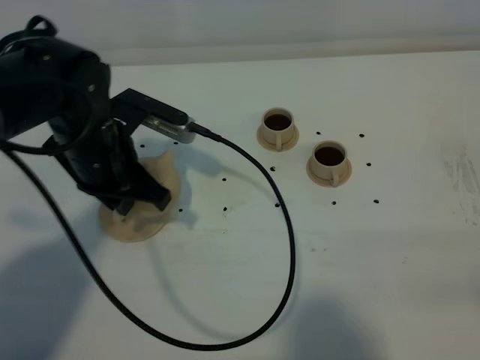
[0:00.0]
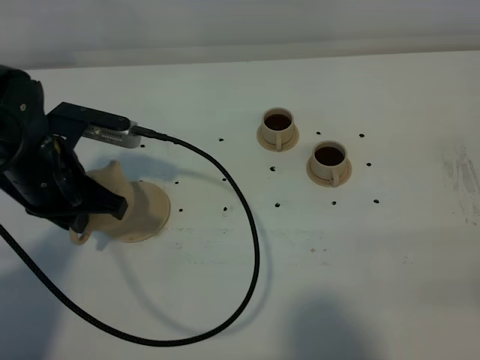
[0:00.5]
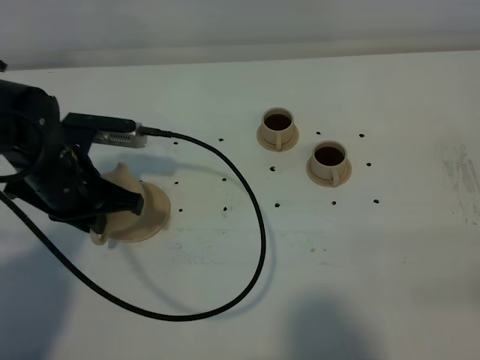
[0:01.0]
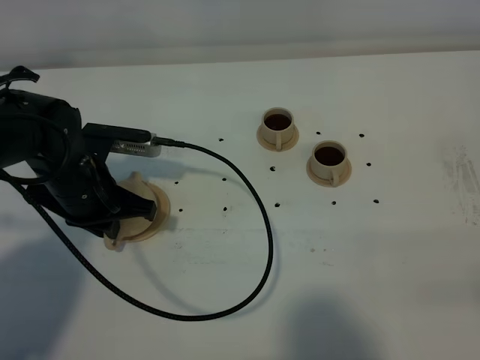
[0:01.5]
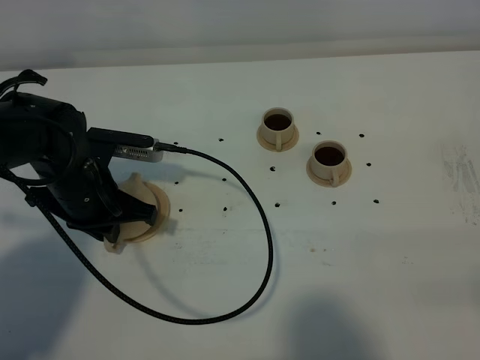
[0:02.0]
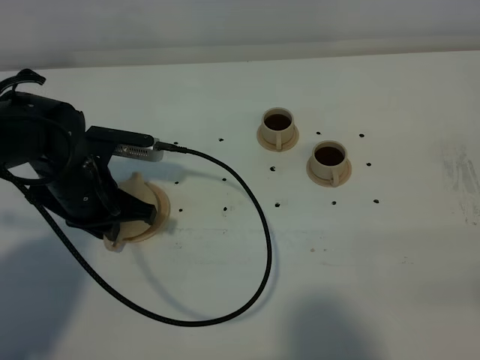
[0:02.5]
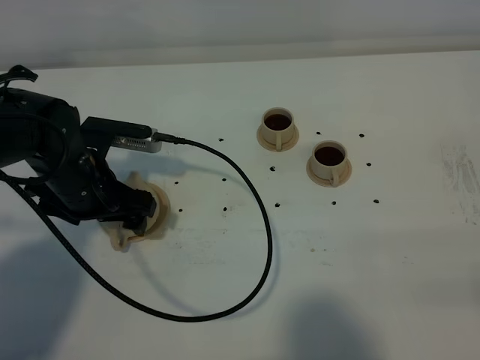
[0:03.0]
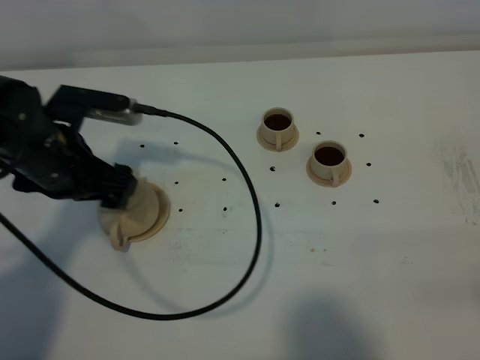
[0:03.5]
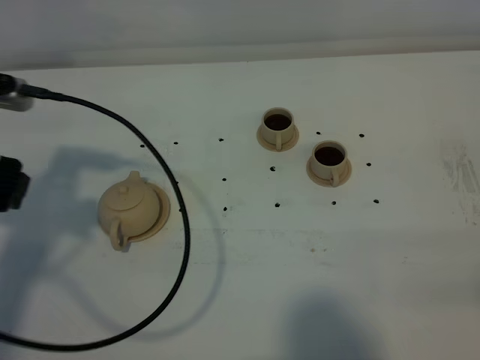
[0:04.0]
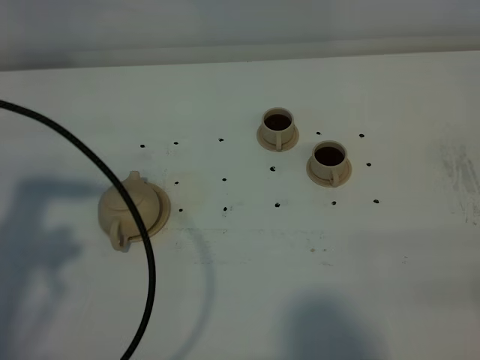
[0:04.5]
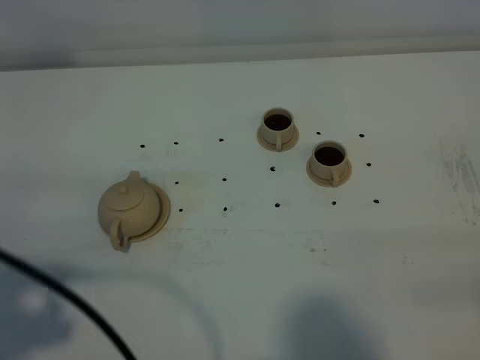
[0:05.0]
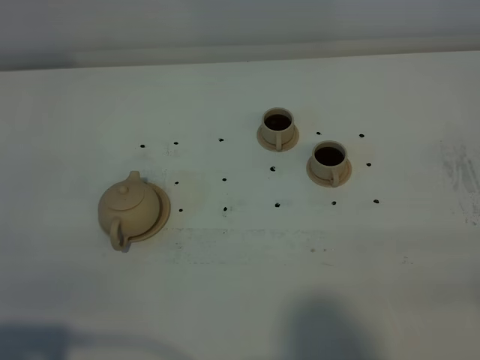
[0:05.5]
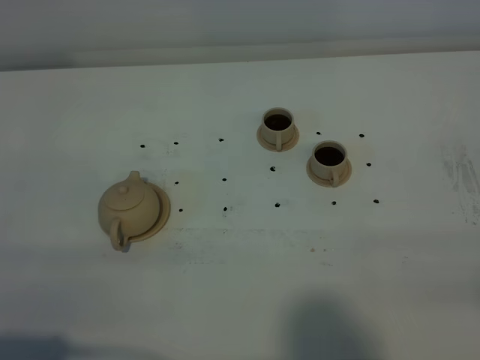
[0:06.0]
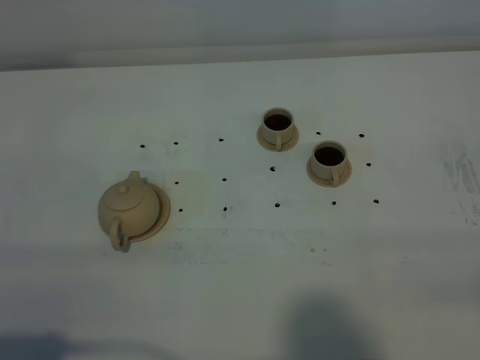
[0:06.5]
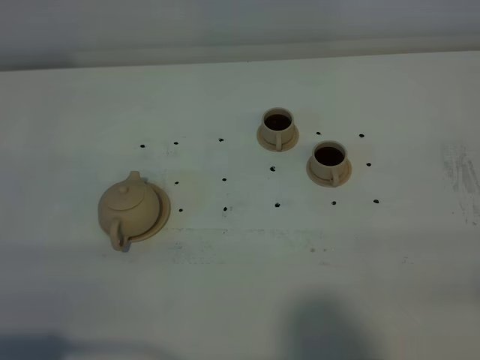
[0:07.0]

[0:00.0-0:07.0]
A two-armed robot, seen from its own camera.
Task of the whole recording: grasp the brown teapot and pour the tea into the two brown teacups one by one, put the brown teapot back in its original place.
0:00.0 to 0:02.0: The left gripper moves downward, some 5 cm.
0:02.0 to 0:03.5: The left gripper shifts about 5 cm upward, and opens its fingers.
0:03.5 to 0:05.0: The left gripper is displaced backward and upward by some 30 cm.
0:05.0 to 0:07.0: The left gripper goes roughly 10 cm downward.

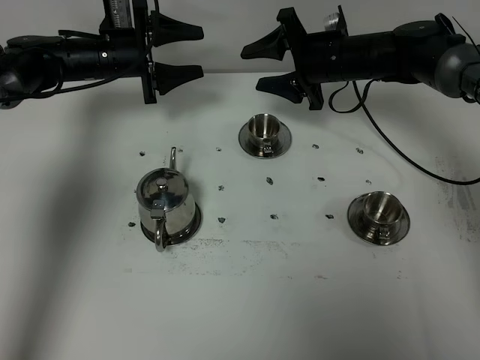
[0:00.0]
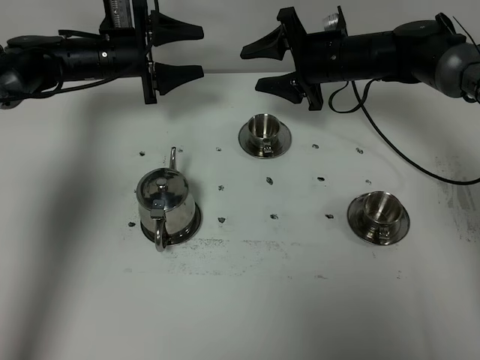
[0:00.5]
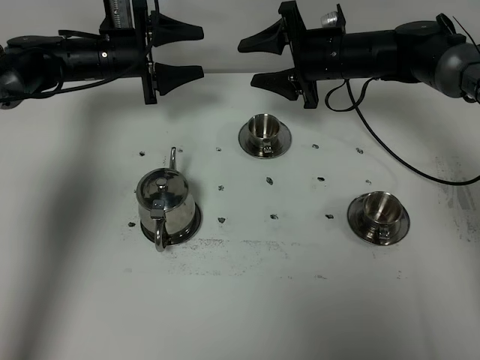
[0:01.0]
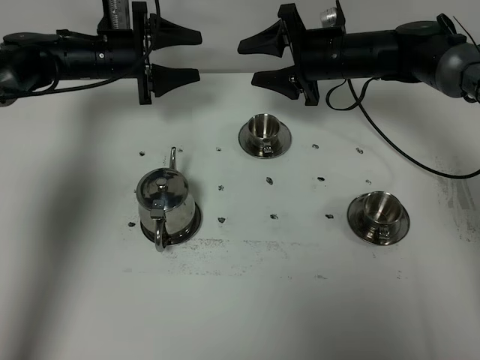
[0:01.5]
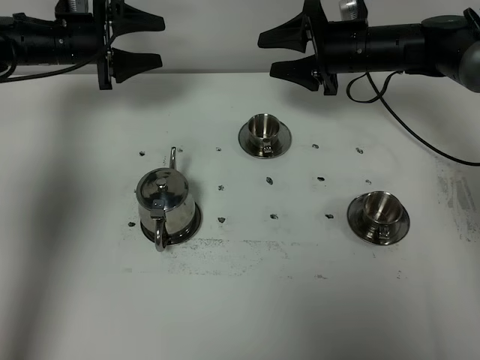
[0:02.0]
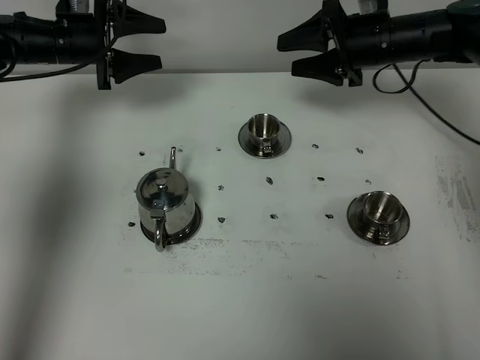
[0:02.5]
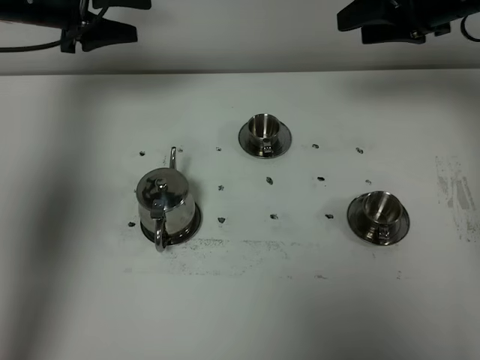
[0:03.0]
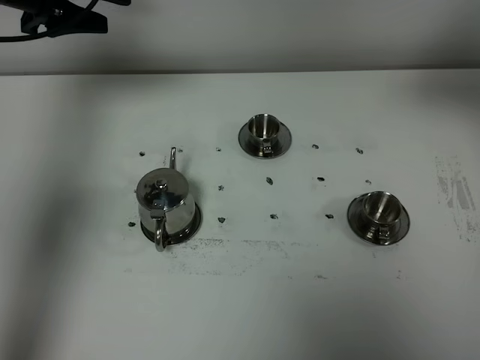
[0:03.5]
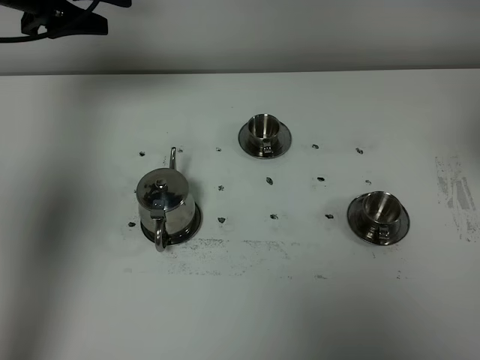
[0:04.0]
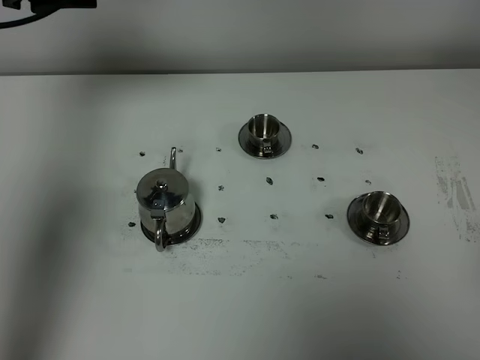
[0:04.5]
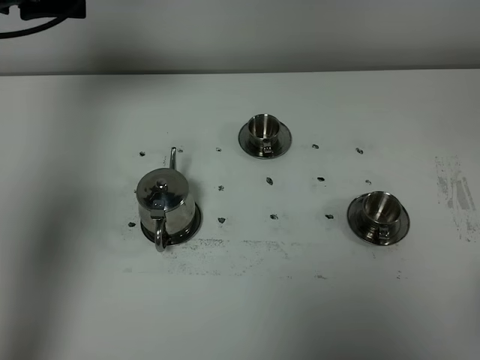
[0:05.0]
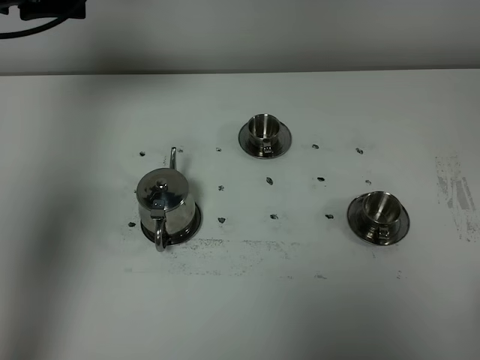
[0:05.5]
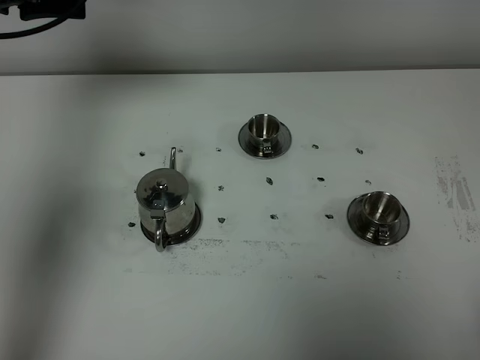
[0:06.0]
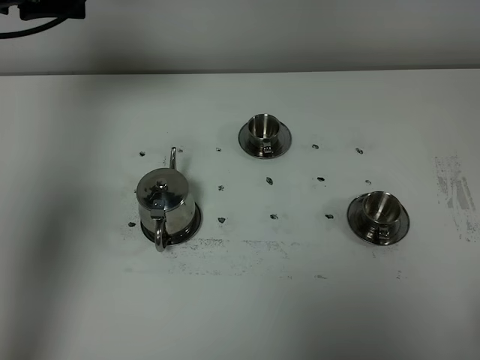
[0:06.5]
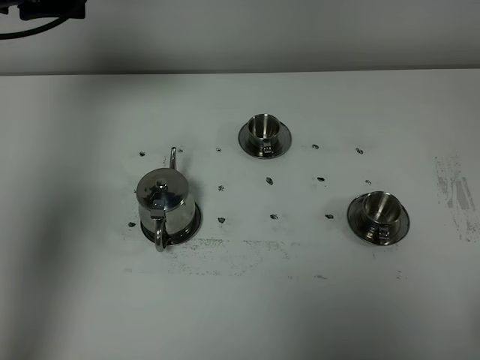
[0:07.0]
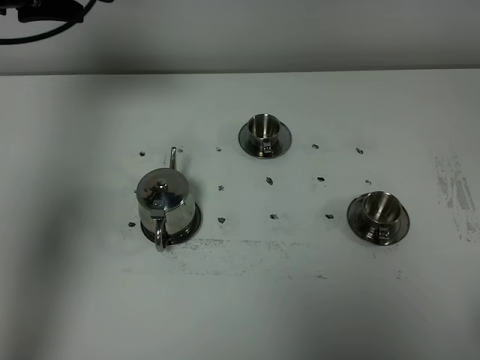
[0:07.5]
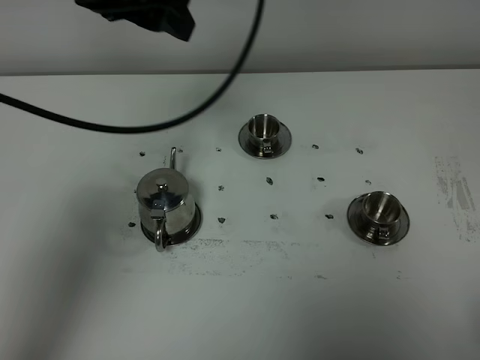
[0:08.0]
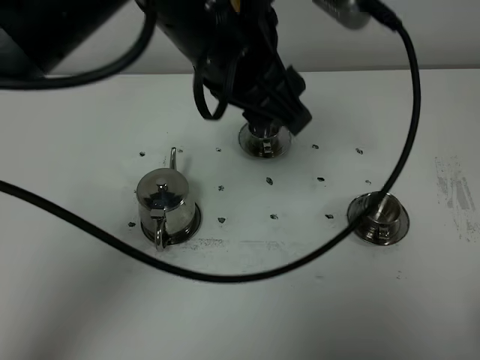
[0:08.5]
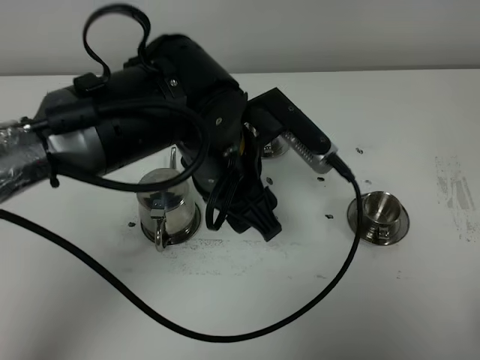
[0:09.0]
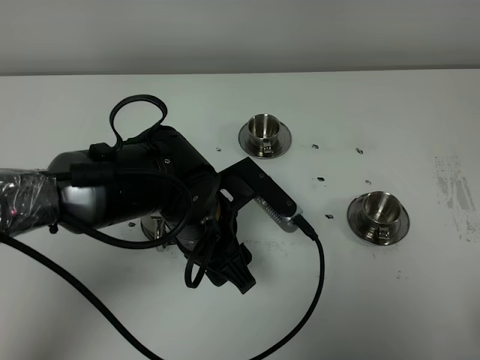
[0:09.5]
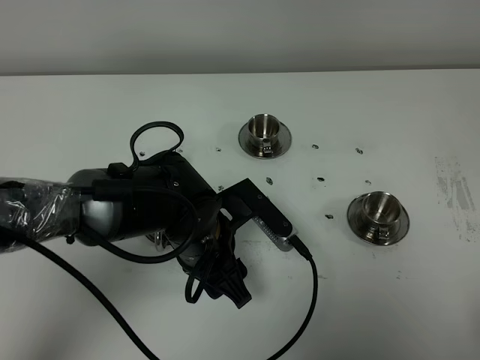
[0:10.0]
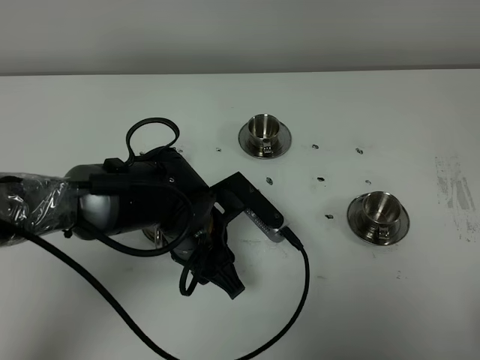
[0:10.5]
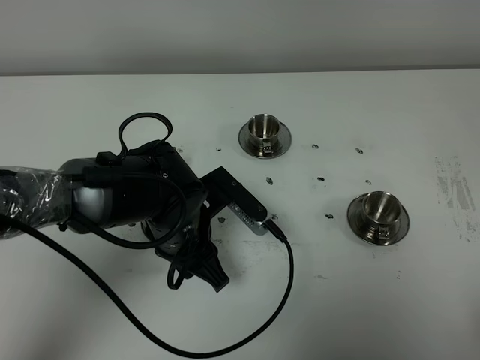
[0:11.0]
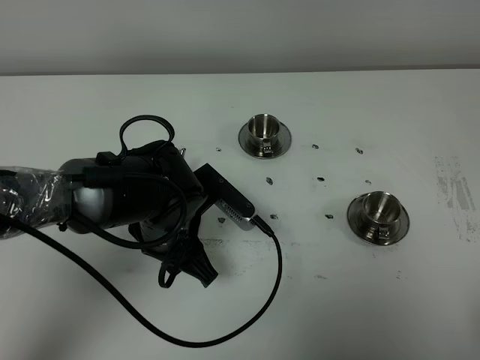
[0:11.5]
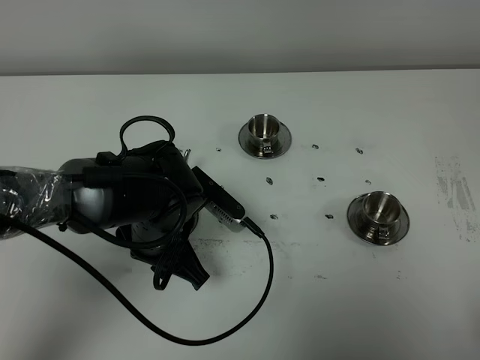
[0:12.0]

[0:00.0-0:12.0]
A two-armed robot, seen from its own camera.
Task of the whole recording: grasp the stainless steel teapot and pour the tea into the two stainless steel teacups one by one, put the stainless steel teapot back in its original place.
0:00.0 to 0:02.0: The left gripper travels to the left by about 5 cm.
0:02.0 to 0:04.0: The right gripper travels backward, upward and to the right by roughly 40 cm, while the left gripper travels upward by roughly 15 cm.
0:06.0 to 0:08.0: The left gripper heads to the right and backward, covering roughly 20 cm.
0:08.0 to 0:10.0: The left gripper moves downward and backward, approximately 30 cm.
0:10.0 to 0:12.0: The left gripper closes its fingers.

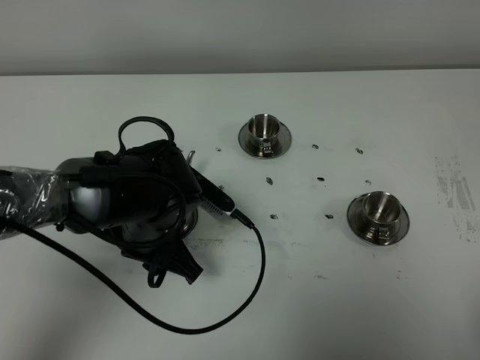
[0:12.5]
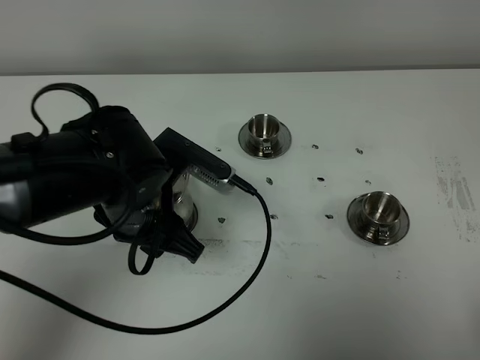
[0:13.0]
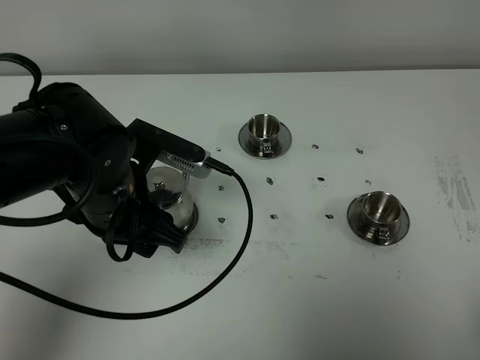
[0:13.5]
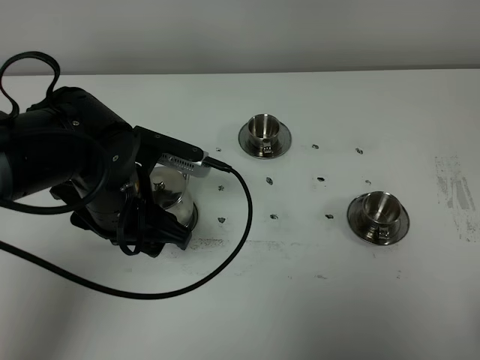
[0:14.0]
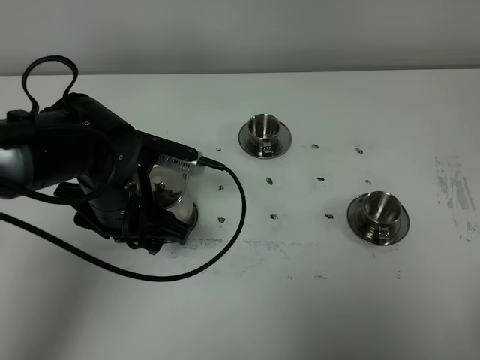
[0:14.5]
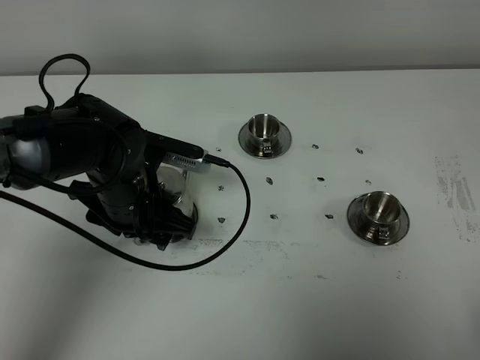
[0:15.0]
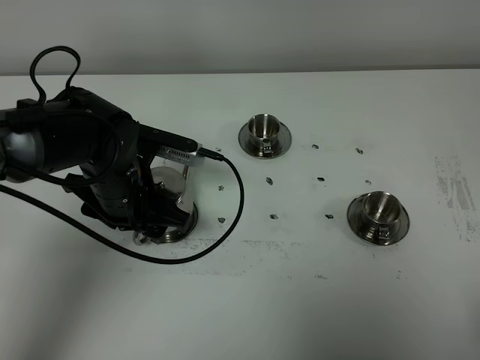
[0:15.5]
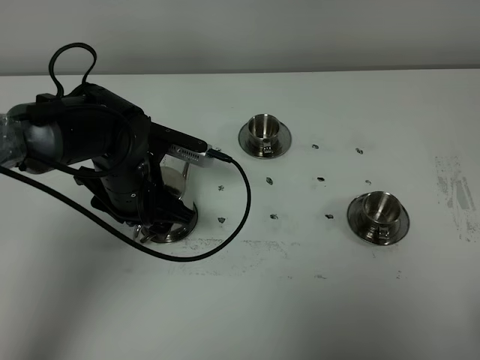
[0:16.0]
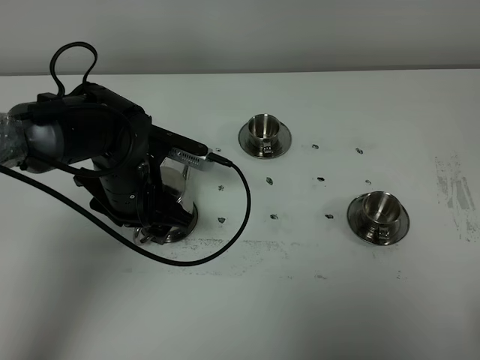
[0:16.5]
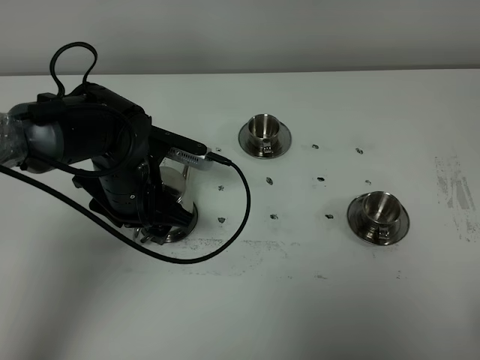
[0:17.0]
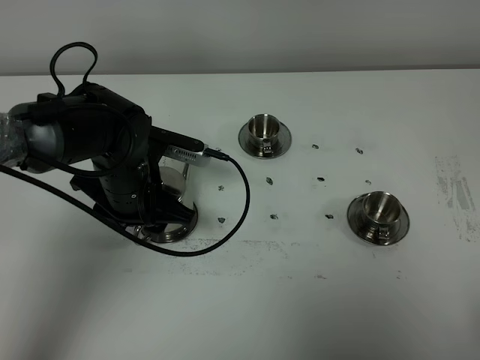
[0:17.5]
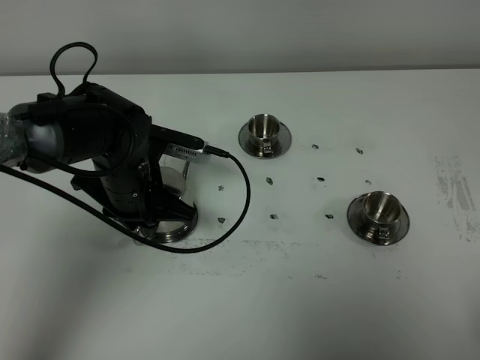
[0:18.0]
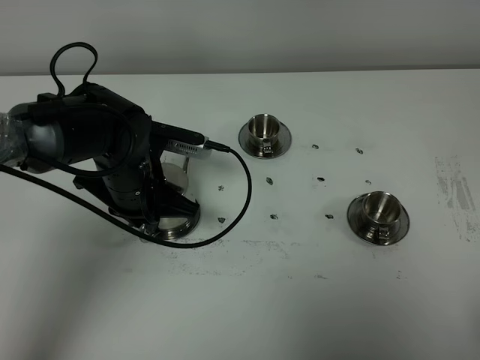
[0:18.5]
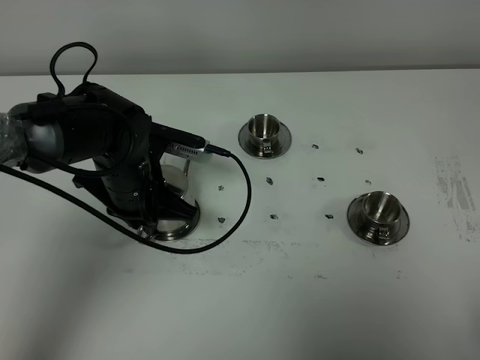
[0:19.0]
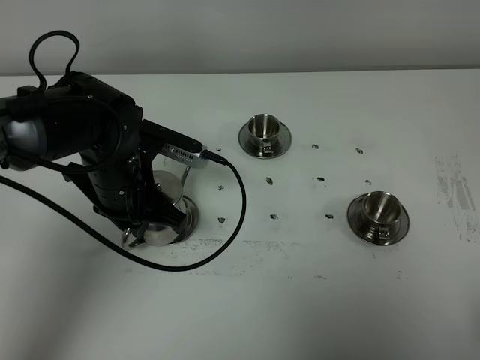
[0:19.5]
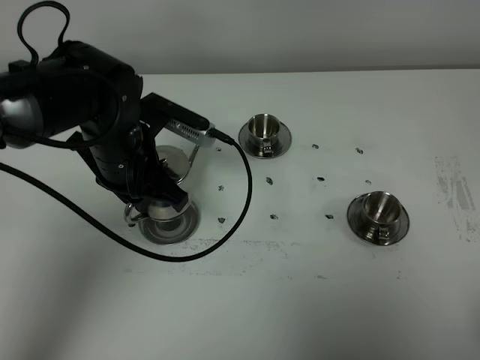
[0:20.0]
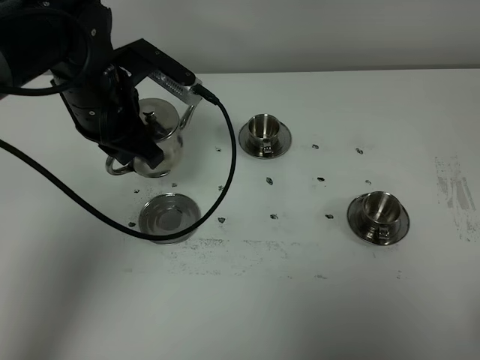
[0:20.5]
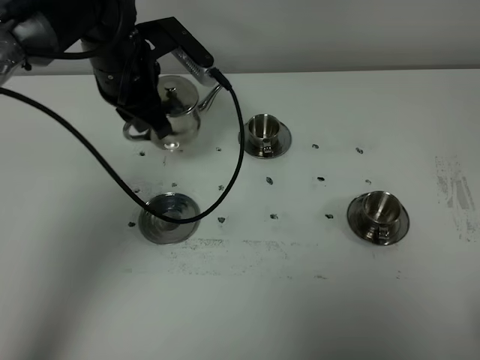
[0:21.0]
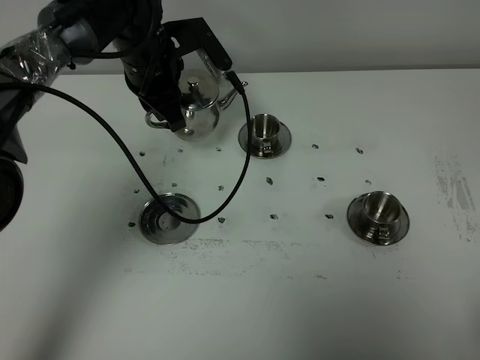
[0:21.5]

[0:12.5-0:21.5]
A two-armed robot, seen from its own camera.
Task of the whole recording: grasp the stainless steel teapot and pour the tea into the two stainless steel teacups one by one, put the stainless steel teapot back in its original place.
Step, 0:12.5 to 0:19.5: Pick up the teapot with the left gripper.
0:12.5 to 0:14.5: The left gripper opens its fingers.
0:14.5 to 0:17.0: The grippers move only a little.
0:17.0 to 0:19.5: The left gripper closes.
0:19.5 to 0:21.5: The left gripper moves forward, about 15 cm.
